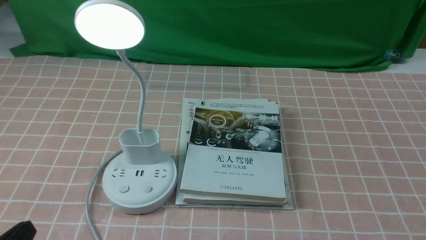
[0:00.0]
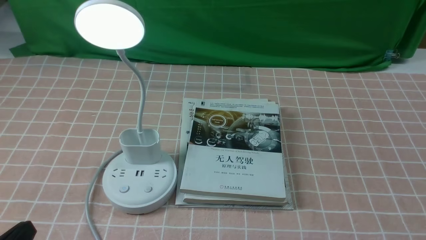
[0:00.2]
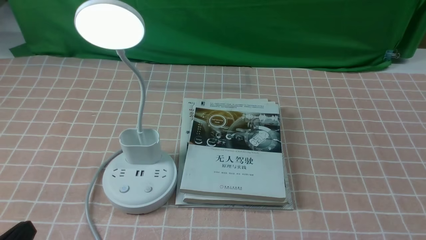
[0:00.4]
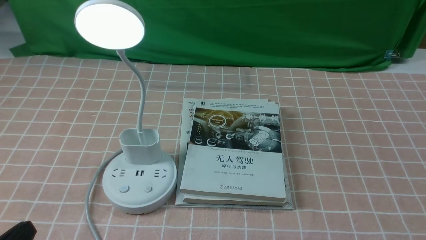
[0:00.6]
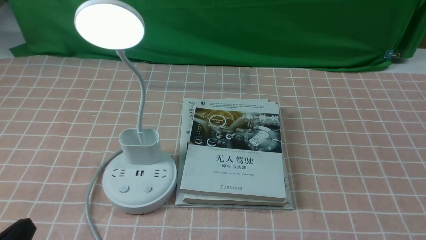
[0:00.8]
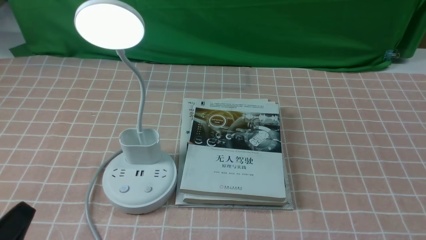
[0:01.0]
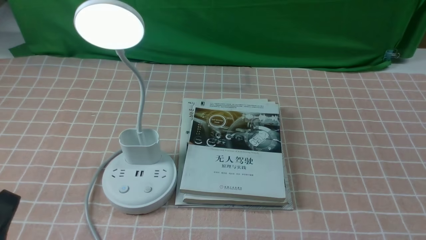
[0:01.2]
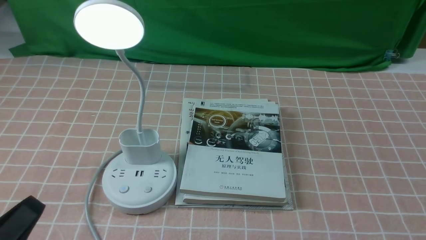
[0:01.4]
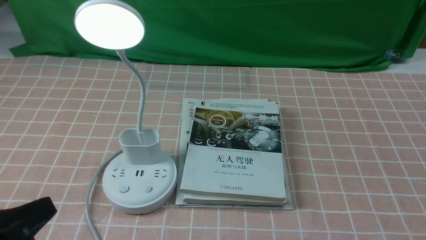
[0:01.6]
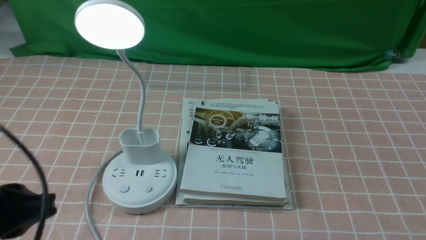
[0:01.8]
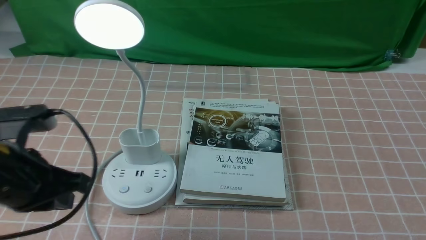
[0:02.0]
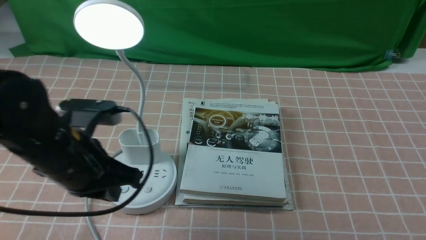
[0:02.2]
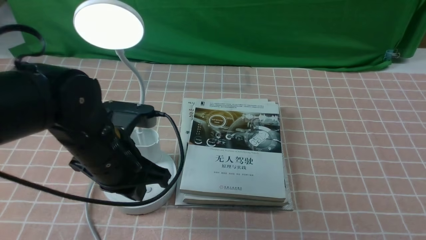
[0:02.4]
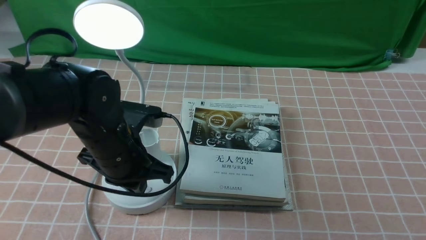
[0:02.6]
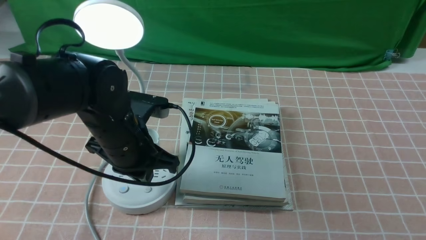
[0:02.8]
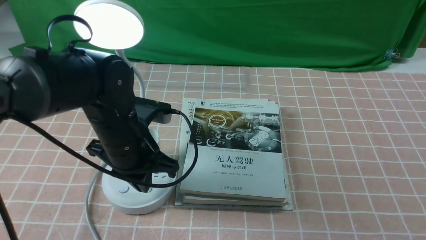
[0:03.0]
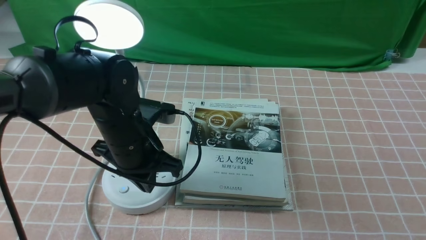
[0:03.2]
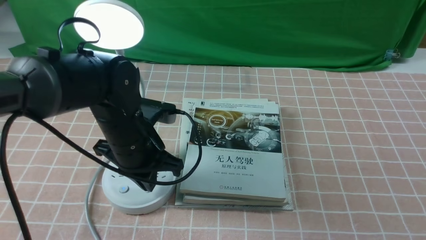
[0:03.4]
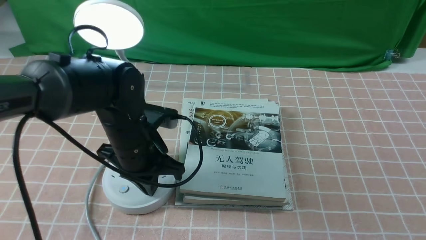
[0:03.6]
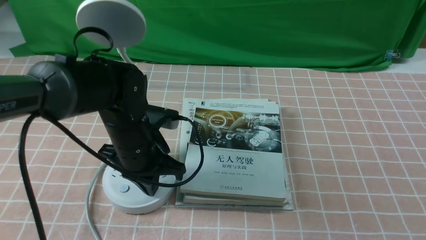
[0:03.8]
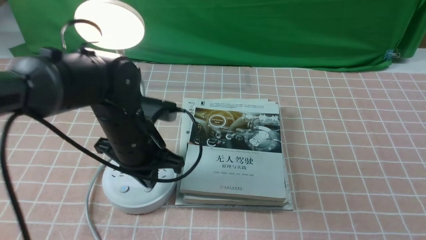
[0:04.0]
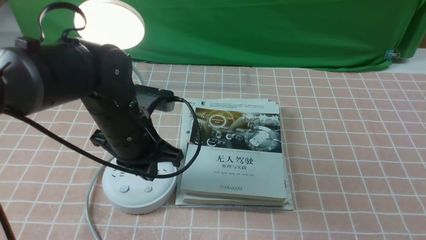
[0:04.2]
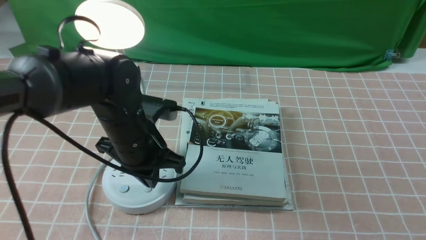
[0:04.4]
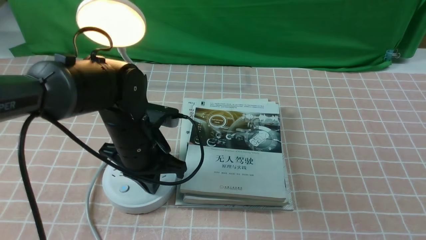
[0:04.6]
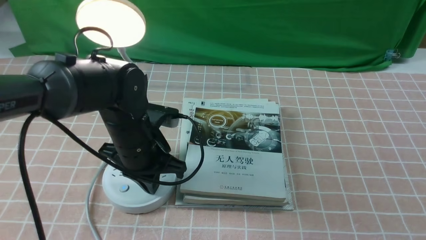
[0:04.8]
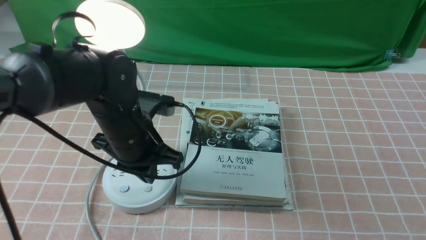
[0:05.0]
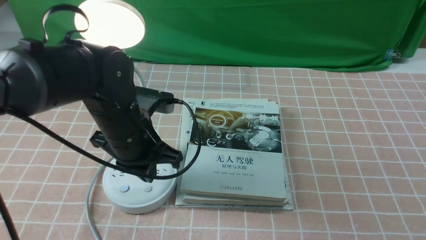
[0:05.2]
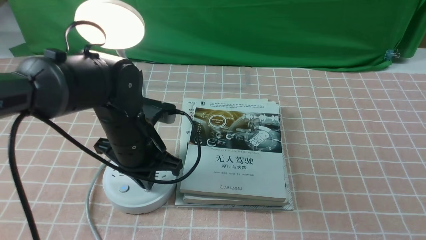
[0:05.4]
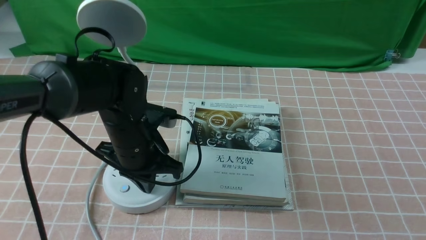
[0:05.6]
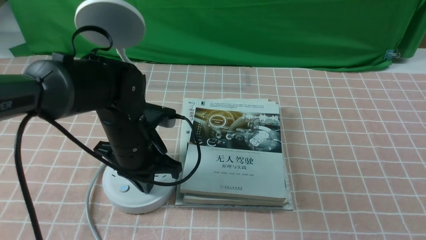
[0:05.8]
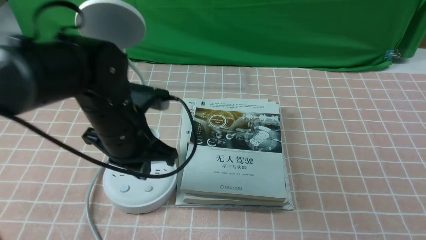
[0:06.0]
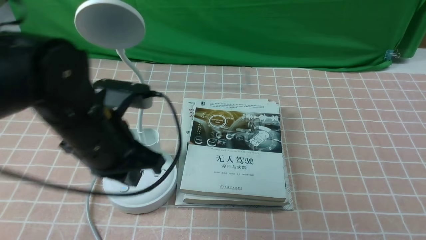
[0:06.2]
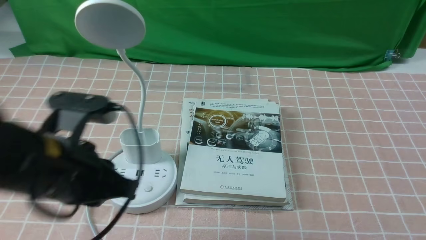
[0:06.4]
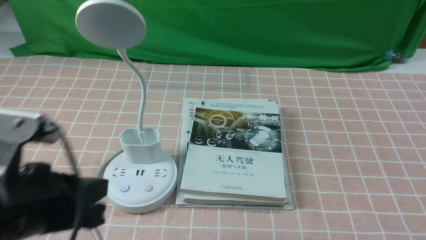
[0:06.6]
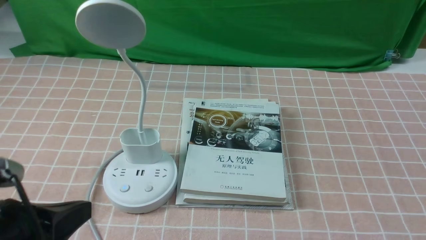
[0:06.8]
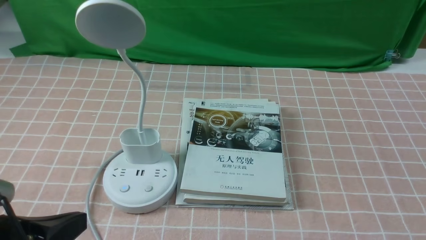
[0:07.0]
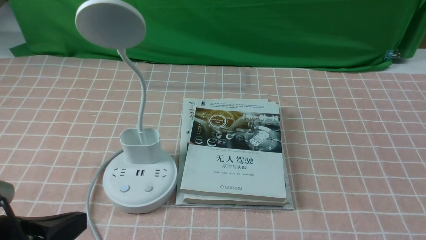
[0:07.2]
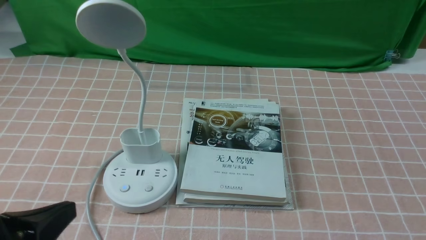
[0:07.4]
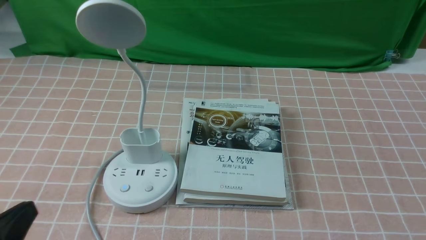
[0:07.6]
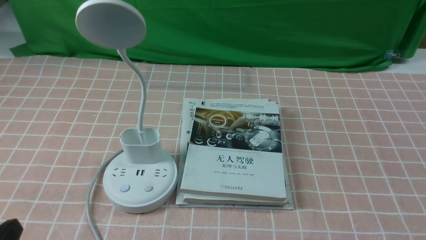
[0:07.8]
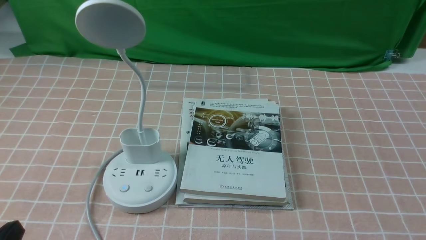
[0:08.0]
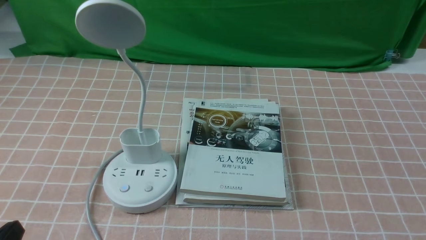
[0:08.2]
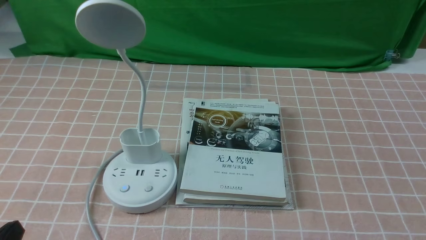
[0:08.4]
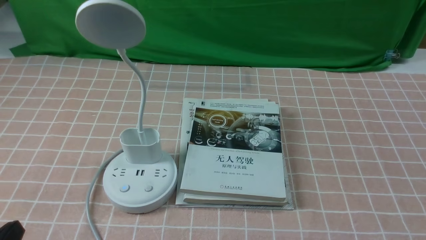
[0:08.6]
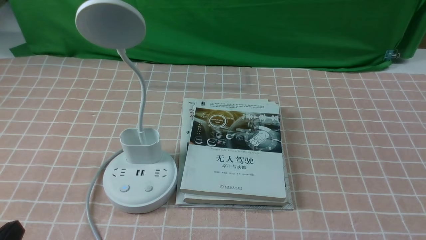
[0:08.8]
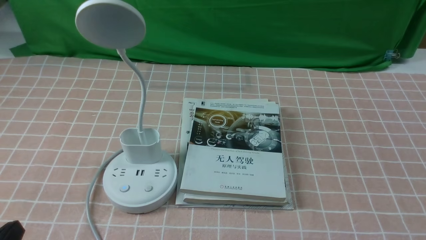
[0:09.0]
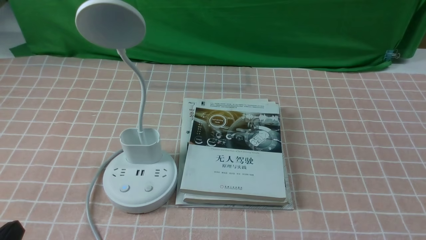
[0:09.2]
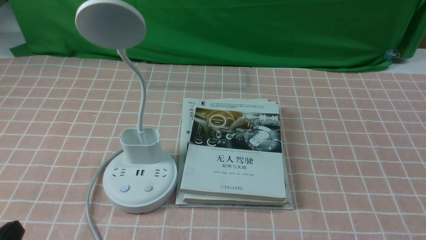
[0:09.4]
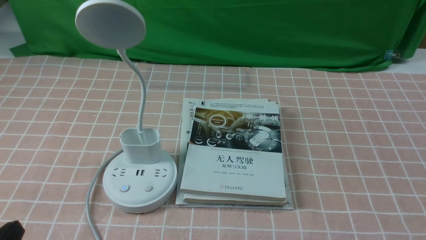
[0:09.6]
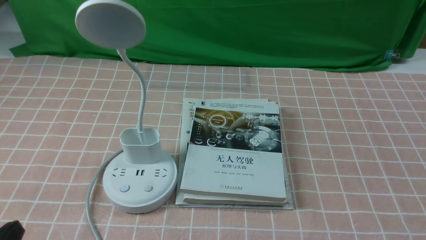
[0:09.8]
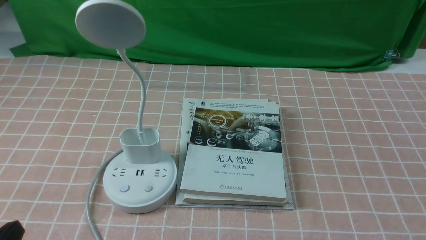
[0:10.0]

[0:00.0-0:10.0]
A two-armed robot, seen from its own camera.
Task of the whole recording: turn off the table lamp on the pink coffee tablecloth by hand.
Step, 0:00.0 to 0:05.8: use the left arm to press the button switch on the lamp holder.
0:00.0 to 0:01.4: The left gripper heads upward, covering about 5 cm.
0:01.4 to 0:02.8: The left gripper goes roughly 25 cm forward and to the right, and closes up.
0:02.8 to 0:05.8: The grippers make only small movements.
0:05.8 to 0:07.2: The left gripper is displaced backward and to the left by some 25 cm.
0:07.2 to 0:08.6: The left gripper is displaced downward by roughly 5 cm.
0:08.6 to 0:10.0: Both grippers stay about where they are.
